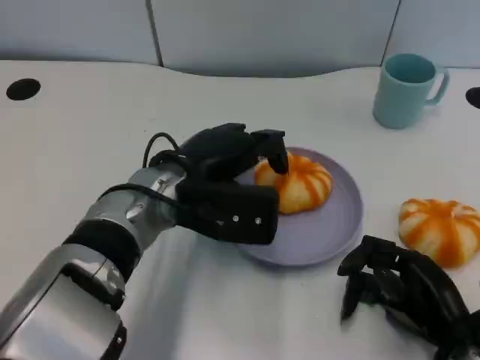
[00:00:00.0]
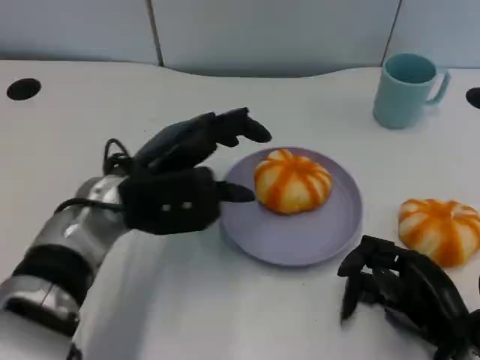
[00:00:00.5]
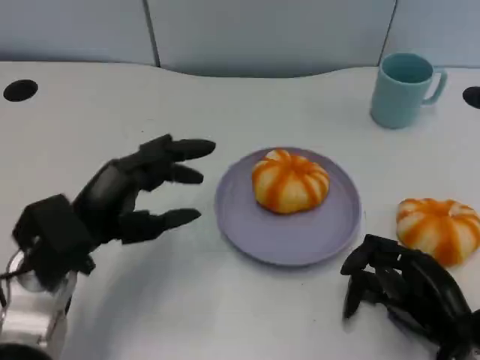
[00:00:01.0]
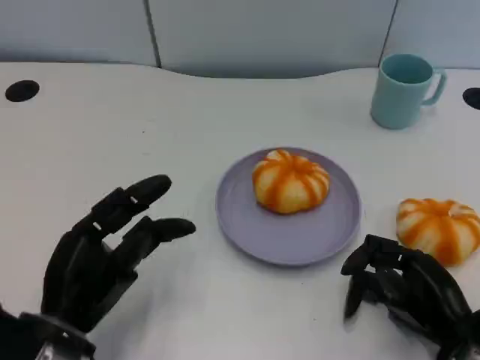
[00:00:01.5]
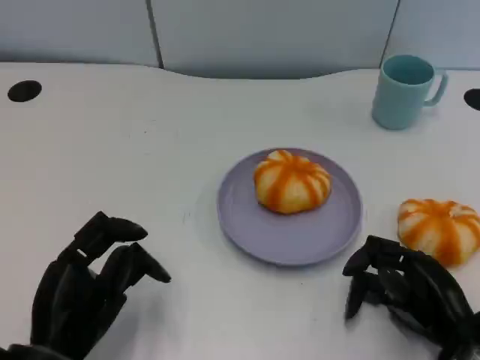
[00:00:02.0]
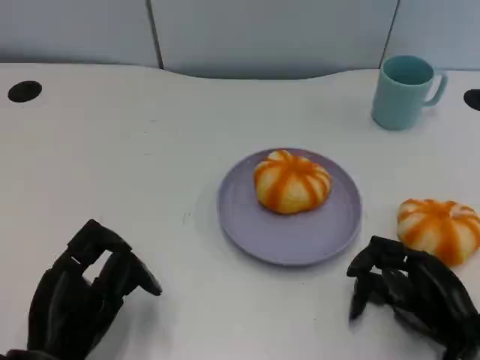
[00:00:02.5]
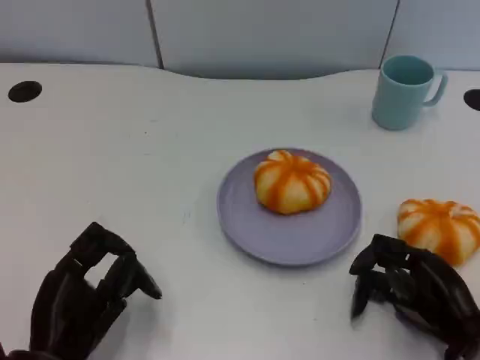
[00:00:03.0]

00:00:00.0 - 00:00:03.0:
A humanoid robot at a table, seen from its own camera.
Task of the whole recording: Grasp the bread from the table and place it into the plate.
00:00:00.0 - 00:00:01.5: The left hand moves backward, to the left and downward, some 20 cm.
00:00:01.5 - 00:00:03.0: The hands move only a little.

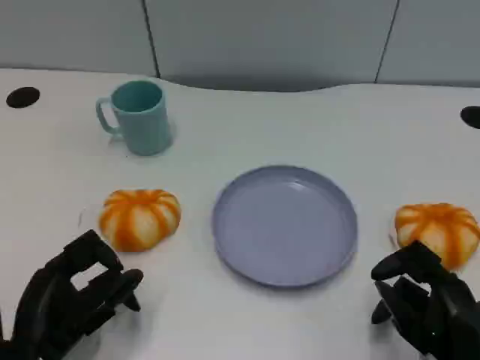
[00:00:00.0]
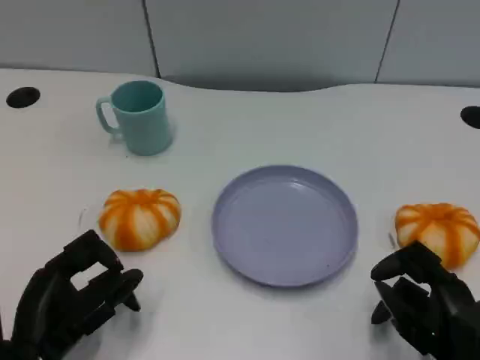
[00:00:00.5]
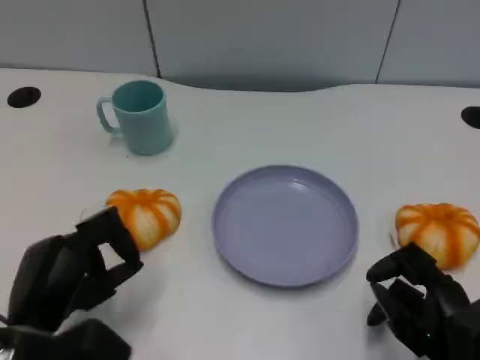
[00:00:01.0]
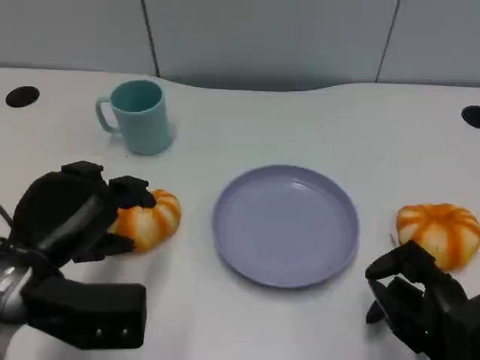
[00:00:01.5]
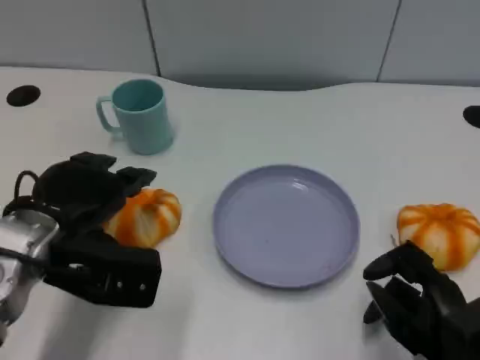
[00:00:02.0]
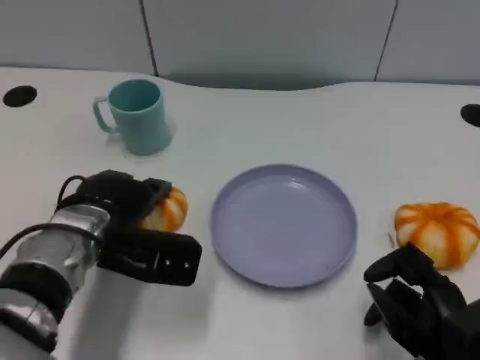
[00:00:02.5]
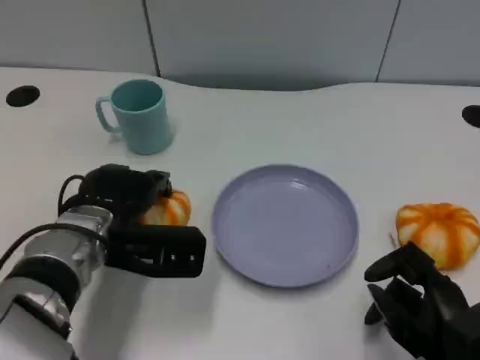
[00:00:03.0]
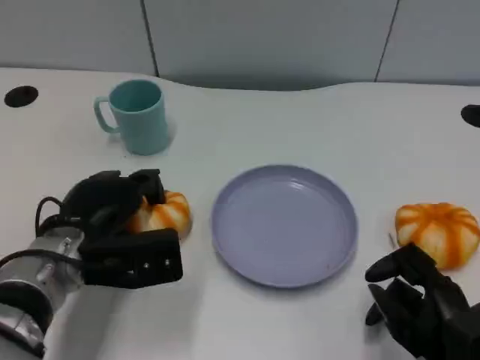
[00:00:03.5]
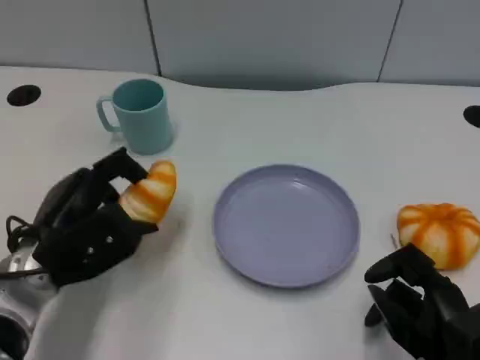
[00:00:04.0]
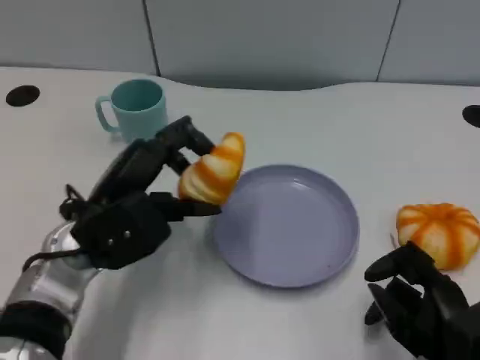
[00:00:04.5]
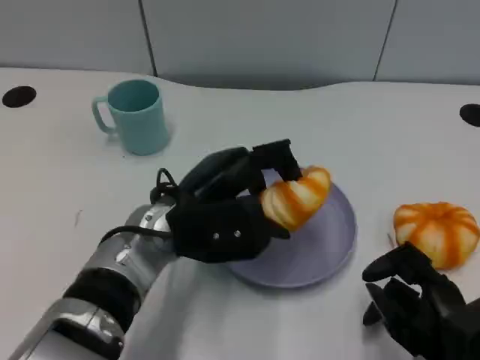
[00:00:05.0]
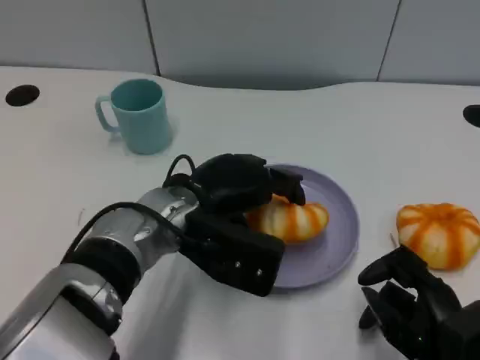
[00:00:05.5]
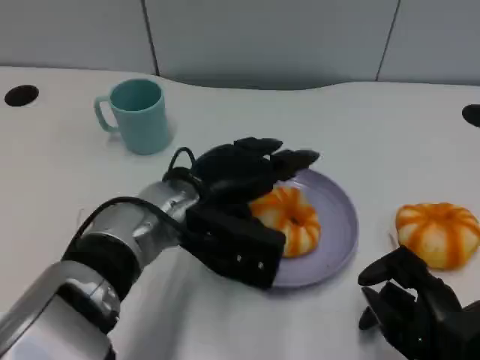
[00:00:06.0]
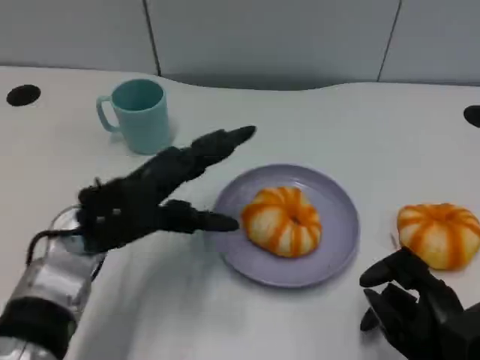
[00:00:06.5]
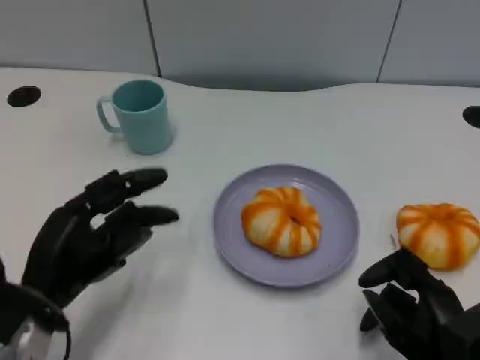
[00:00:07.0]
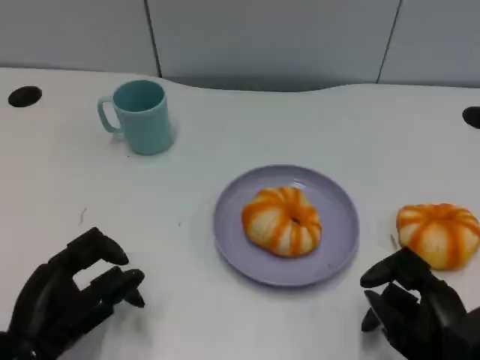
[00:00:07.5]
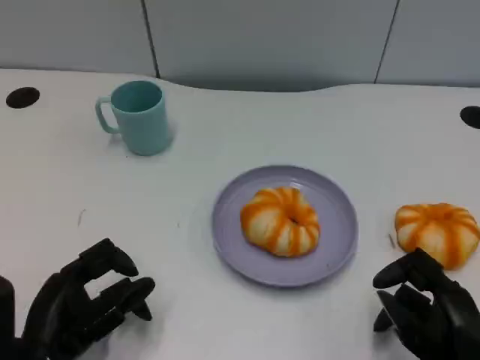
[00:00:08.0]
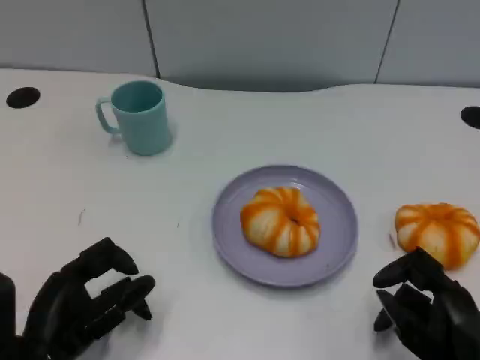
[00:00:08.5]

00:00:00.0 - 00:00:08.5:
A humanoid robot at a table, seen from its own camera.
Task of the whole recording: Grasp the bread from the table and place it into the plate.
00:00:00.0 - 00:00:02.0: The left hand travels forward and upward by about 15 cm.
00:00:04.0 - 00:00:06.5: The left hand goes to the right and returns, about 15 cm each way.
00:00:06.5 - 00:00:08.5: The left hand heads backward, downward and to the left, covering about 15 cm.

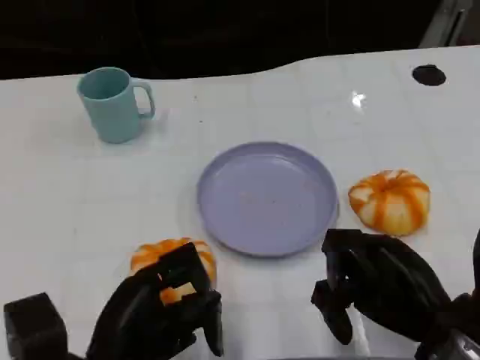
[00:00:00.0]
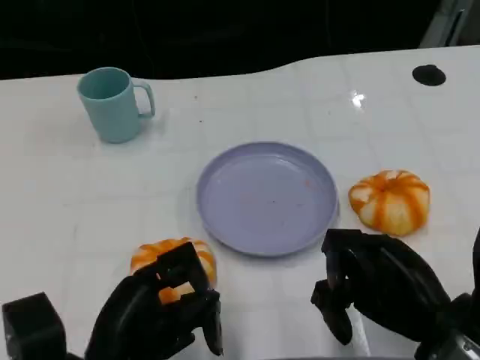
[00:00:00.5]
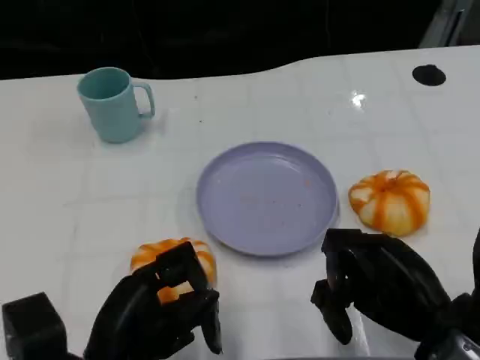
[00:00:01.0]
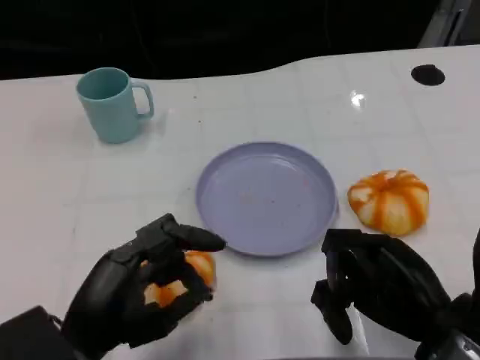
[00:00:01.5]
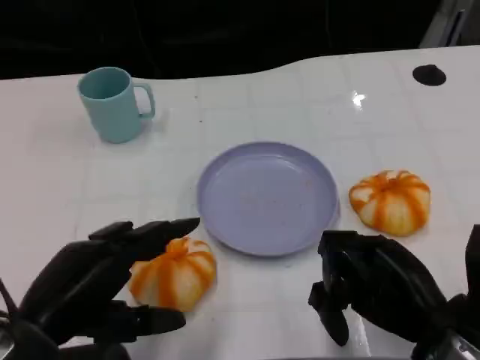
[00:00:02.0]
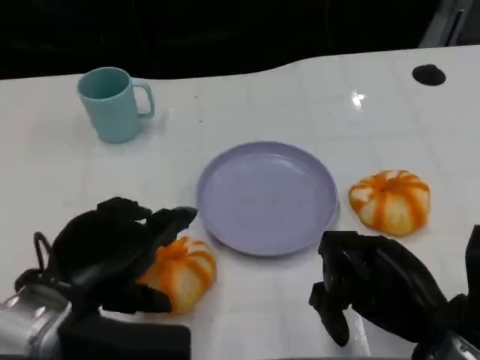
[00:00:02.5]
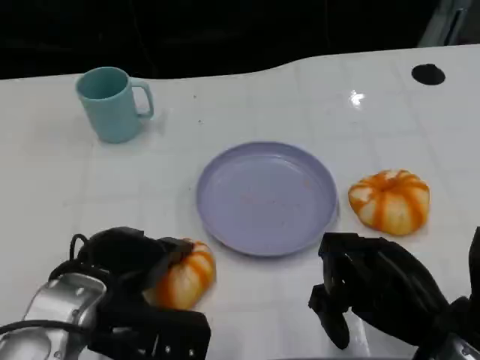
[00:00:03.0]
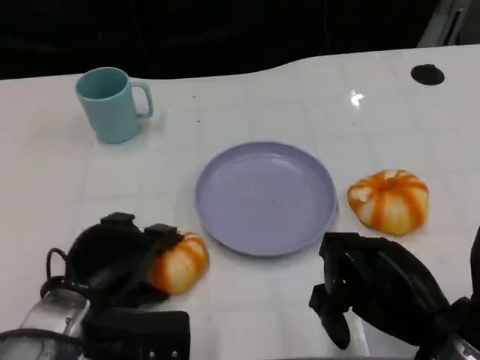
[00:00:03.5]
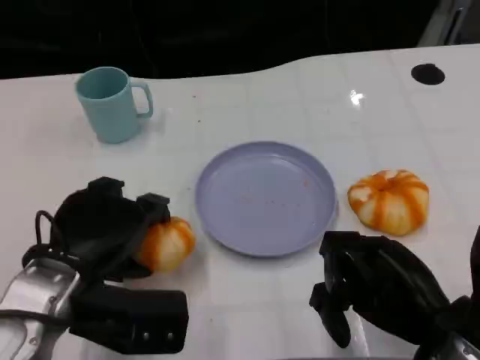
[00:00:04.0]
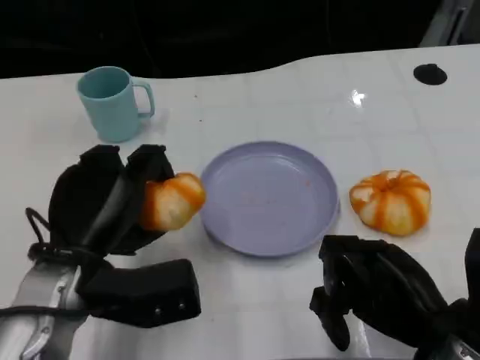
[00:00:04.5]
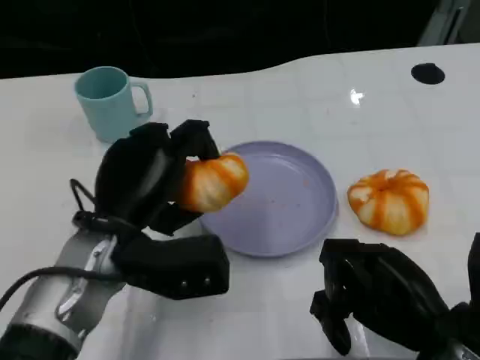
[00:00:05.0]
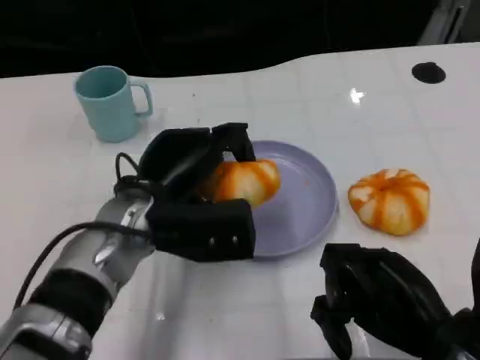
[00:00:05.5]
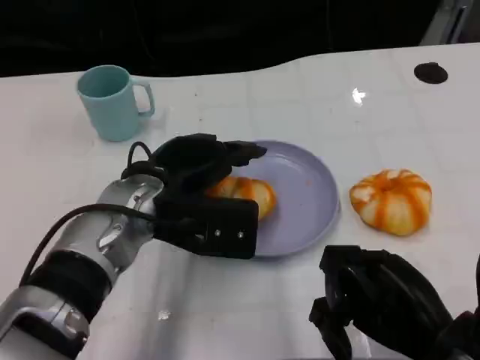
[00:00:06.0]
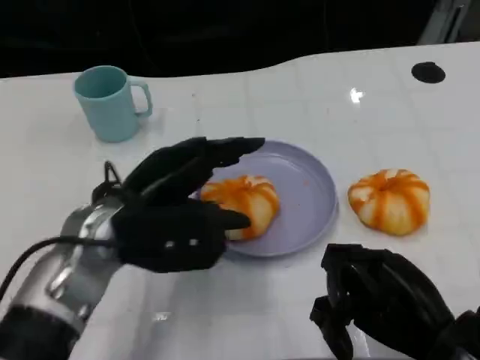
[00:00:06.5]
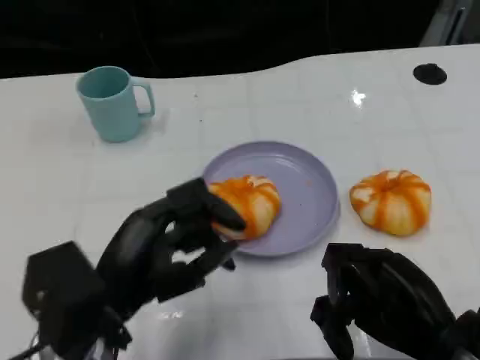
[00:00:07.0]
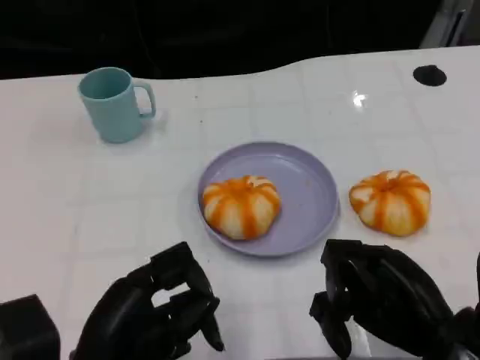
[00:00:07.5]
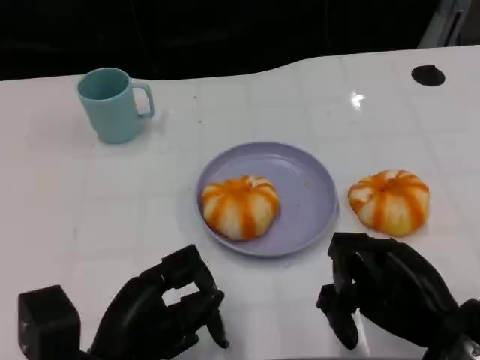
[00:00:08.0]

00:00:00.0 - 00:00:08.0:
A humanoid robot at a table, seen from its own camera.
Task of the whole recording: Grasp the bread from the table and place it into the plate.
00:00:00.0 - 00:00:02.0: The left hand goes approximately 5 cm upward.
00:00:02.0 - 00:00:04.0: The left hand heads forward, covering some 5 cm.
00:00:04.0 - 00:00:06.0: The left hand is displaced to the right and forward by about 10 cm.
00:00:06.0 - 00:00:08.0: The left hand goes approximately 15 cm backward and downward.

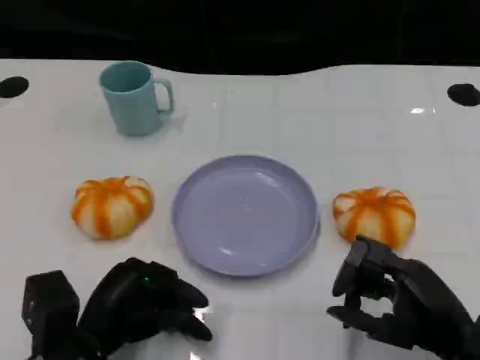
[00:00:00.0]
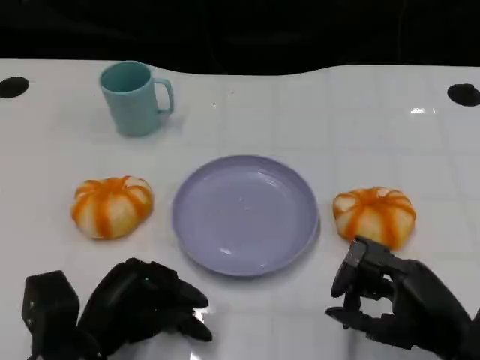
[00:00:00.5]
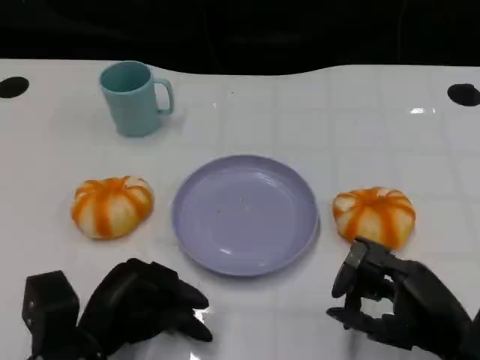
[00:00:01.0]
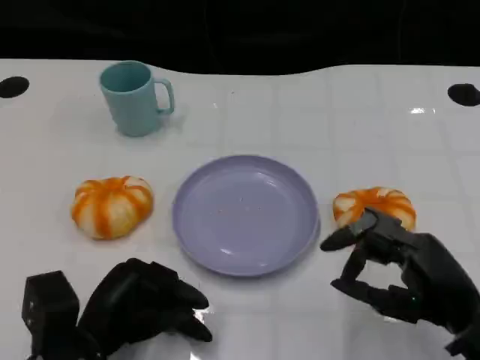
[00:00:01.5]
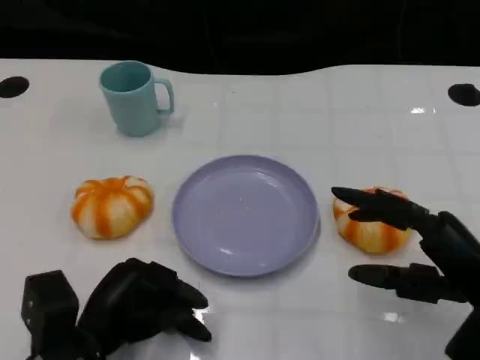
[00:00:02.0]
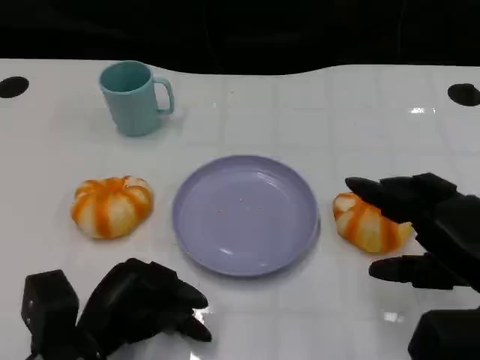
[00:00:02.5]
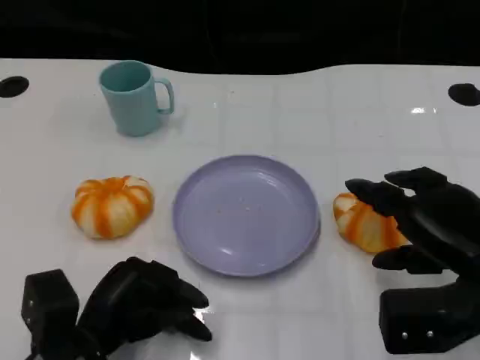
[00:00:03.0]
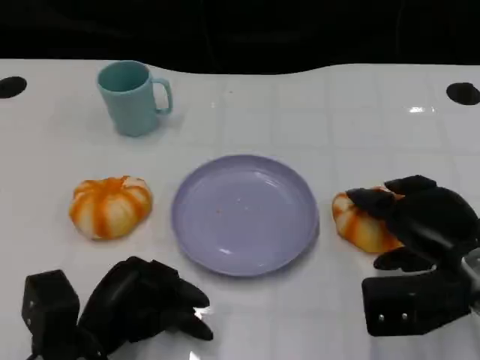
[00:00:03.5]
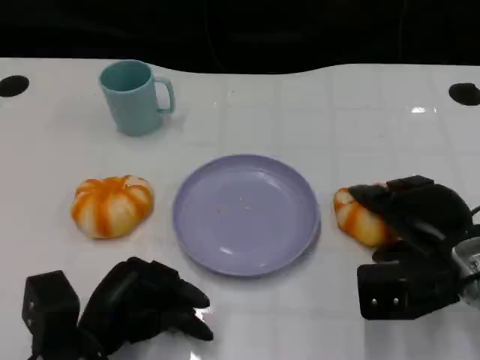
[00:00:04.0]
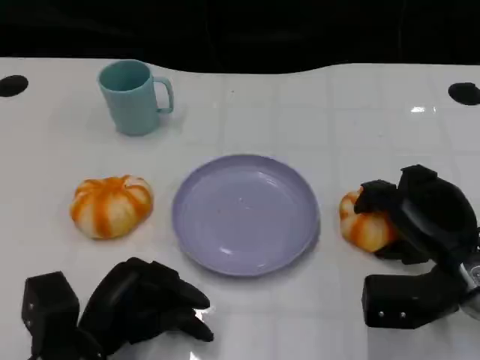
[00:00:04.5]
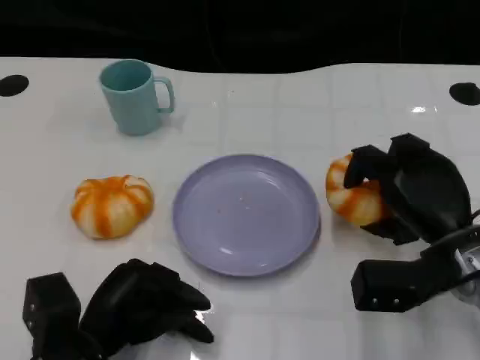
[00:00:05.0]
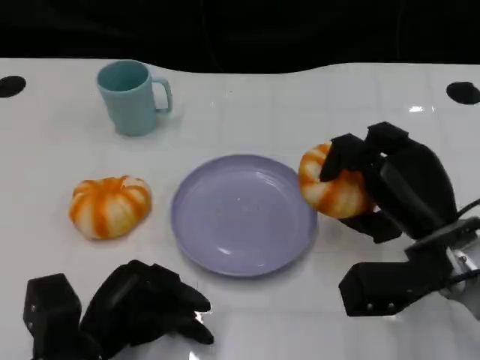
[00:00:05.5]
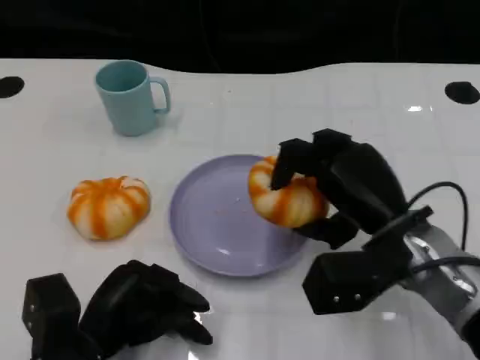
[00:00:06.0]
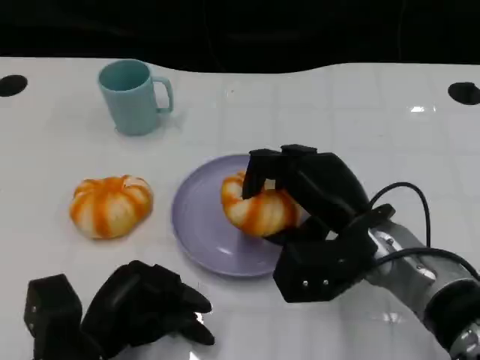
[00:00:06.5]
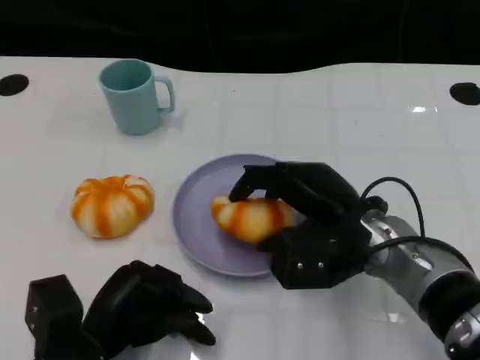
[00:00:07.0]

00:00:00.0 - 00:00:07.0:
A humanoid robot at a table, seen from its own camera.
Task of the whole recording: Grasp the bread from the table and place it into the plate.
00:00:00.0 - 00:00:02.0: The right hand changes place by some 5 cm.
00:00:02.0 - 00:00:03.5: The right hand goes some 5 cm forward.
00:00:05.0 - 00:00:07.0: The right hand heads to the left, covering approximately 10 cm.
